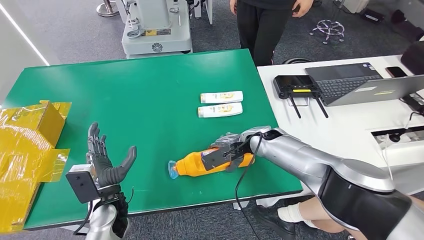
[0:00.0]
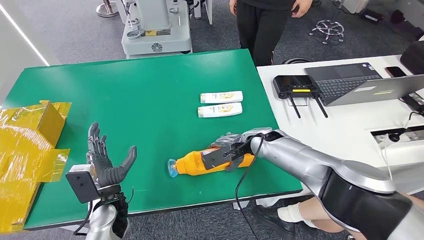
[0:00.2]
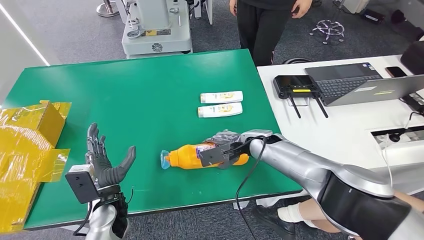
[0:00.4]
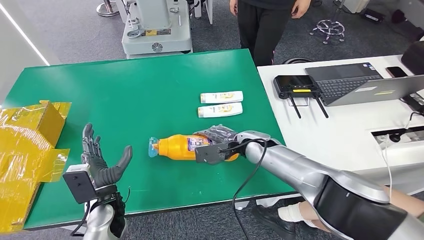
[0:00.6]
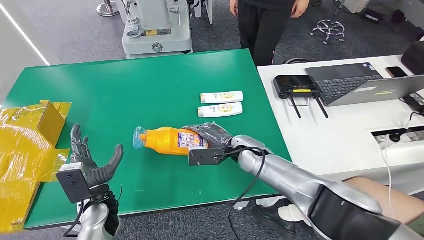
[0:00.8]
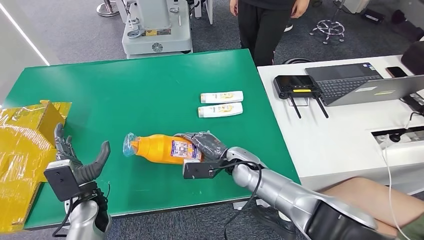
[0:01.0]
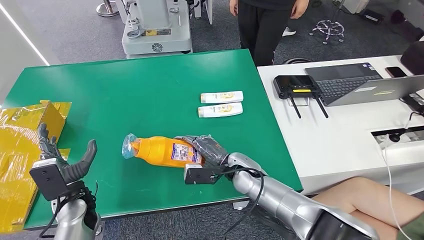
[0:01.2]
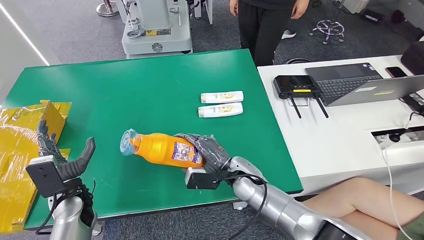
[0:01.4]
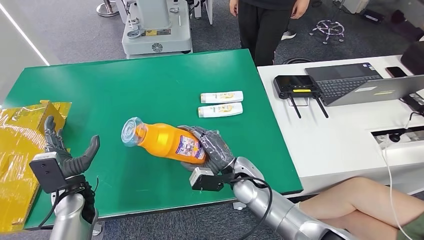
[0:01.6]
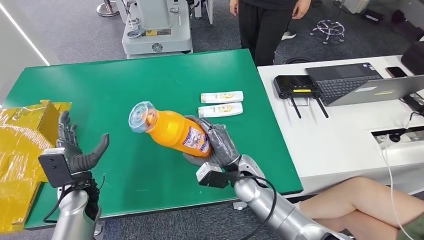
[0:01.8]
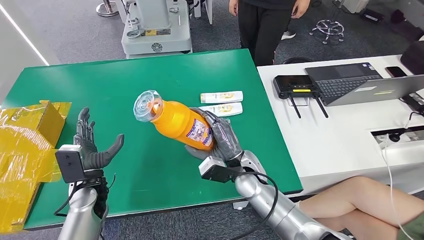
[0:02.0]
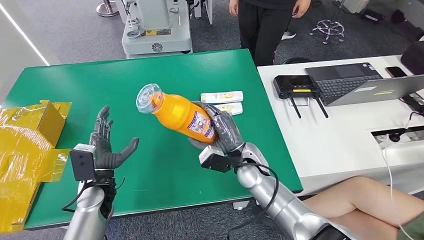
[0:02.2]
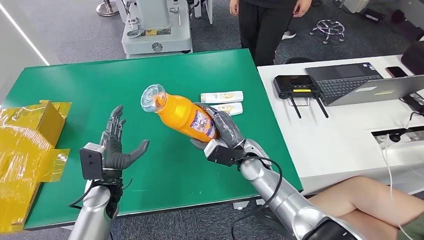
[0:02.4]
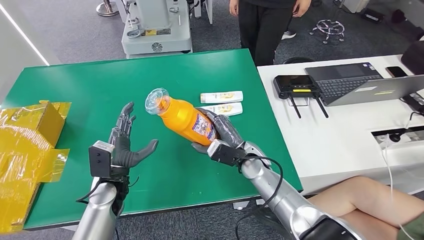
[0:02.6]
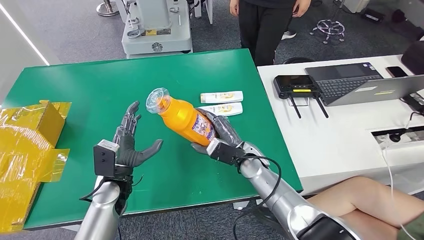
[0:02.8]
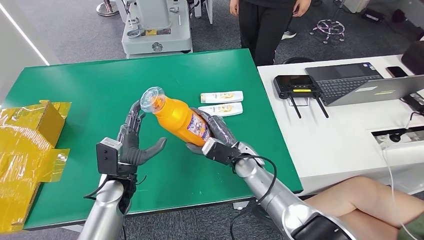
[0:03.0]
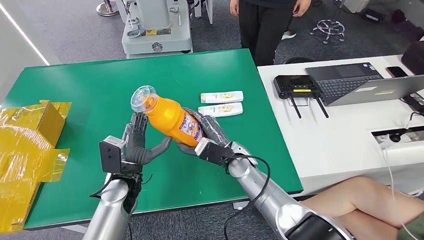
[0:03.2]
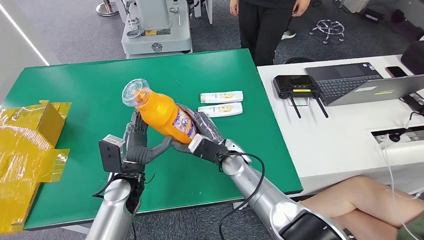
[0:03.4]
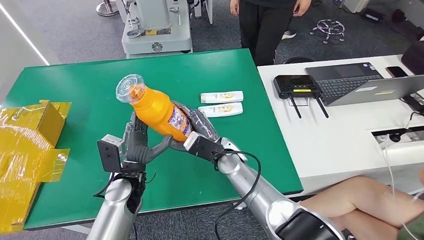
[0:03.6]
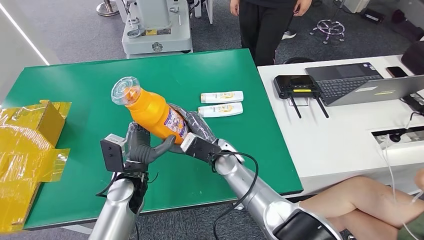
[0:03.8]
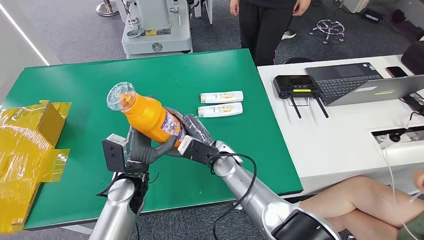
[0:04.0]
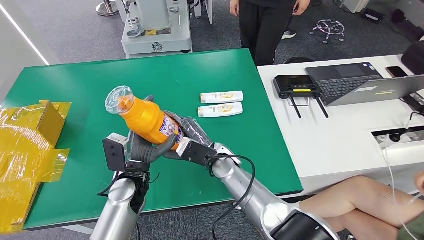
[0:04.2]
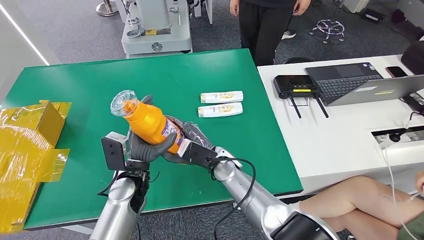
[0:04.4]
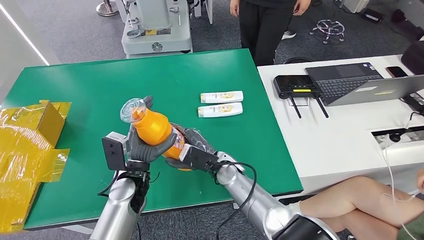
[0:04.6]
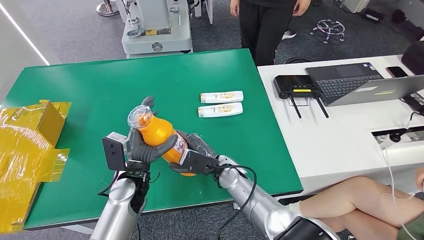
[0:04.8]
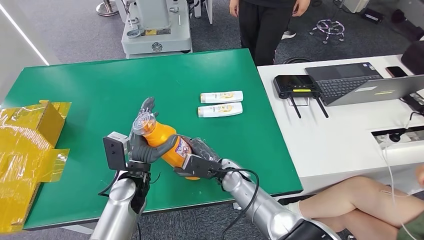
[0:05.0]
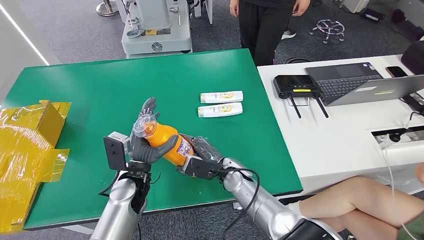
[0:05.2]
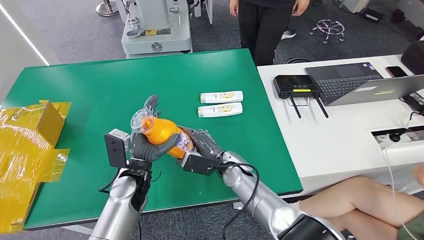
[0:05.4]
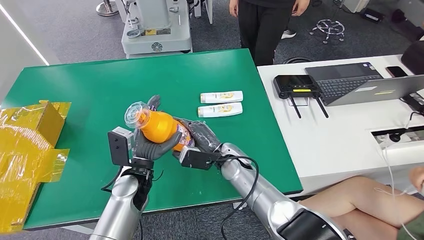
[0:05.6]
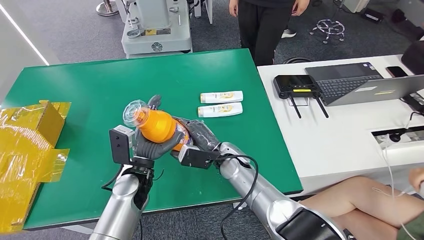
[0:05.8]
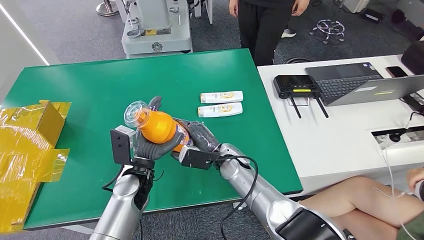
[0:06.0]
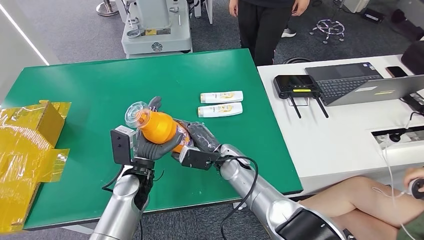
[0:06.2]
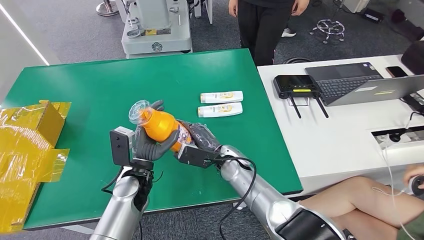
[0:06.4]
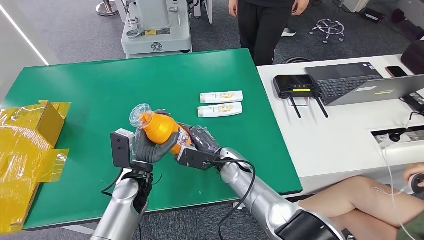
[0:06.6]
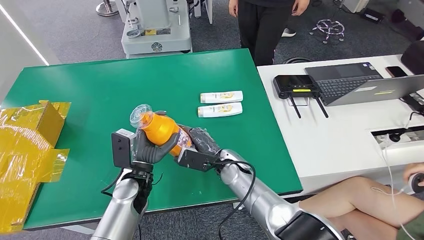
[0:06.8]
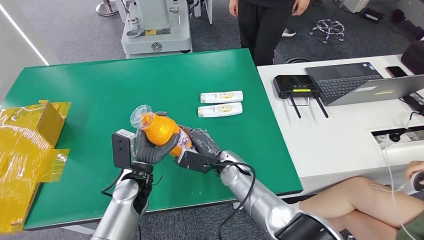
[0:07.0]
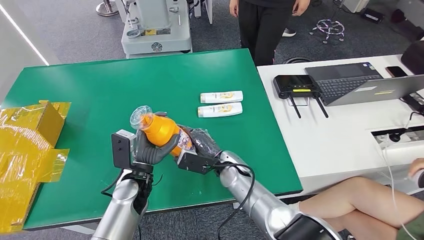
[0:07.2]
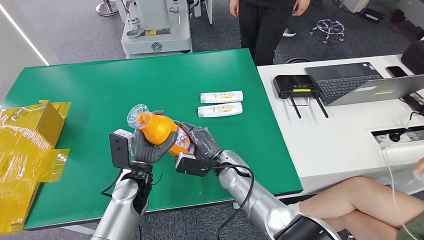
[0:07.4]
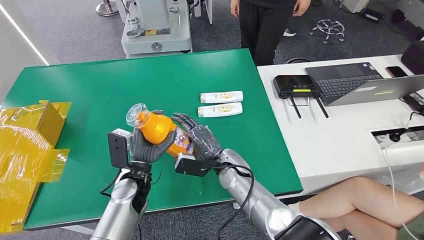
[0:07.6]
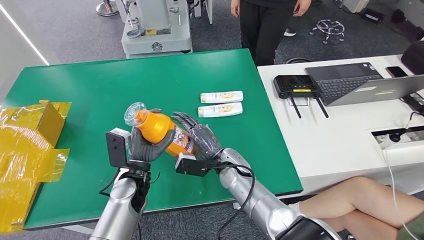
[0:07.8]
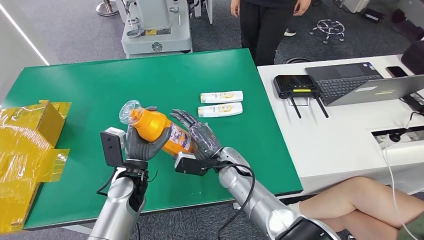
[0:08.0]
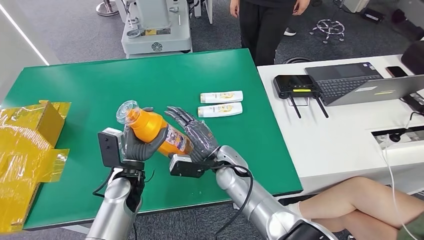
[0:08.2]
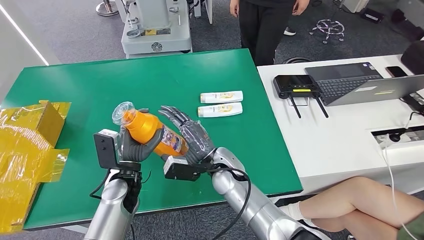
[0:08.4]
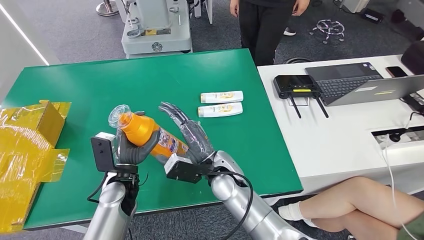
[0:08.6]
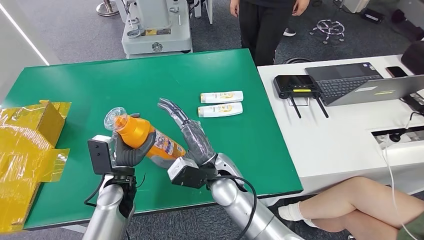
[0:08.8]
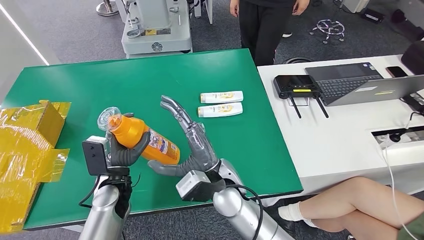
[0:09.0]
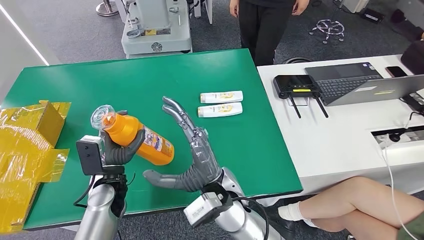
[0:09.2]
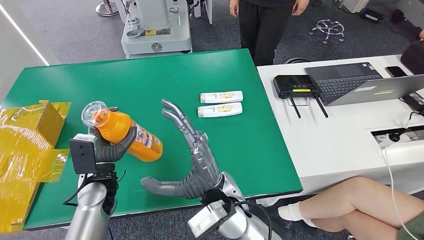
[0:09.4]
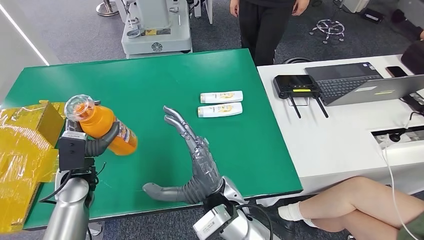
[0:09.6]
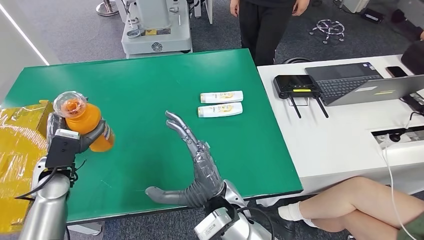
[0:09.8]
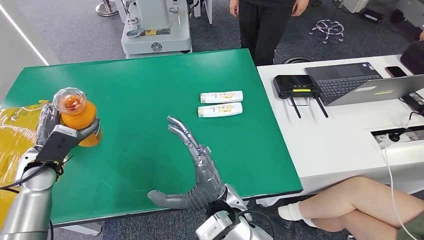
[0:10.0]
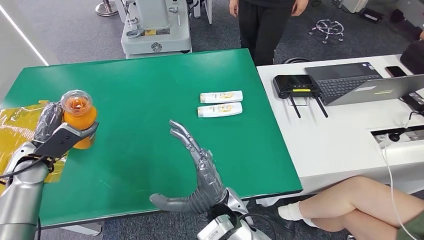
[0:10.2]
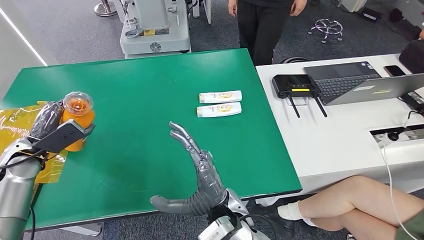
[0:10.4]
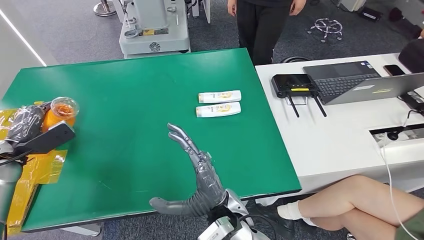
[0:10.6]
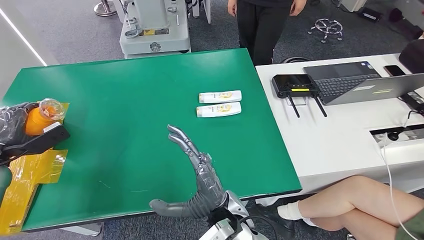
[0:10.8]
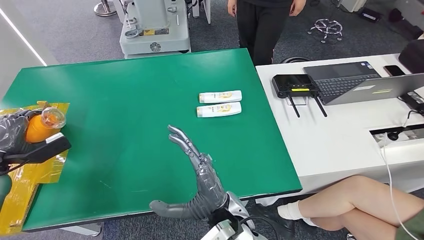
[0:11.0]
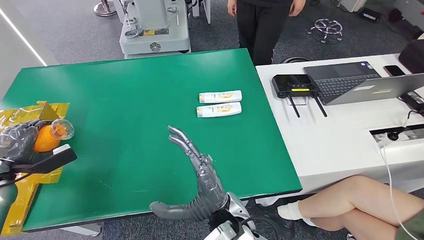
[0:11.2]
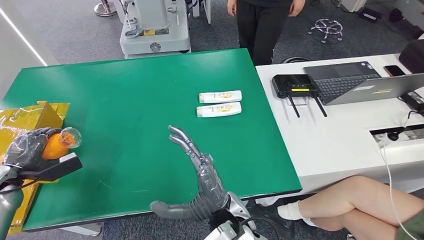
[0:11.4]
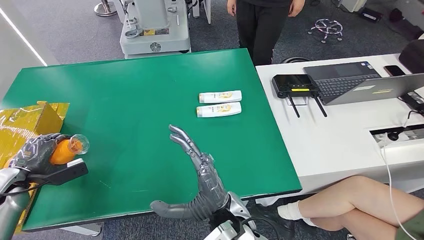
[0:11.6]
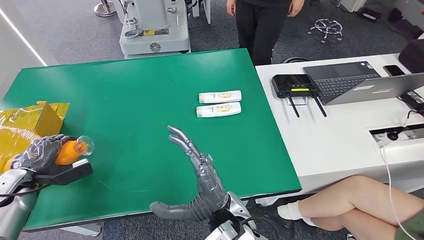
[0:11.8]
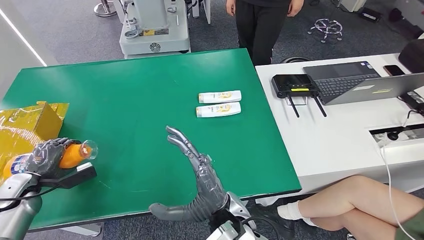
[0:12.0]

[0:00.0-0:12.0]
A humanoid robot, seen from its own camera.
0:01.6 to 0:03.0: The left hand heads to the right, covering about 10 cm.
0:03.0 to 0:04.4: The right hand moves to the left, approximately 5 cm.
0:04.4 to 0:06.0: The hands make only small movements.
0:06.0 to 0:07.6: There are only small adjustments of the hands.
0:07.6 to 0:09.0: The right hand is displaced upward and to the left by about 10 cm.
0:10.4 to 0:12.0: The left hand is displaced downward and to the left by approximately 10 cm.

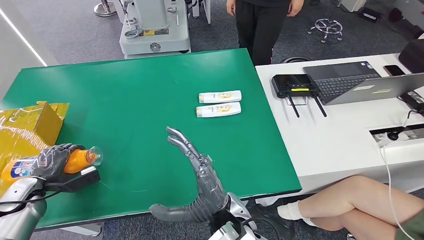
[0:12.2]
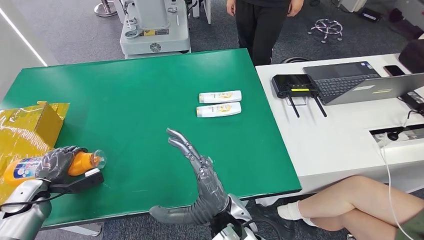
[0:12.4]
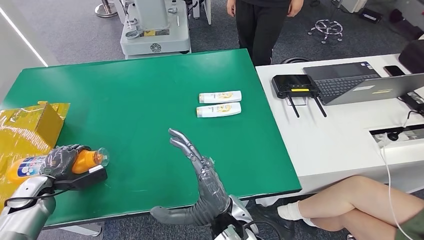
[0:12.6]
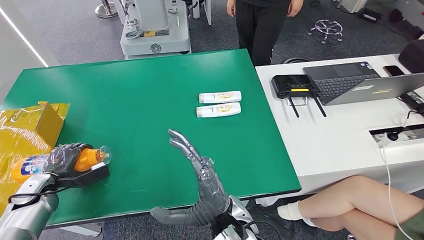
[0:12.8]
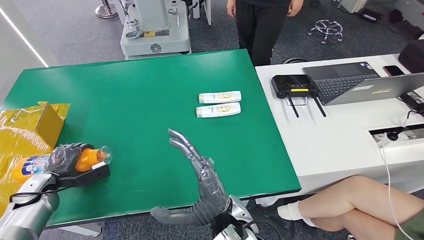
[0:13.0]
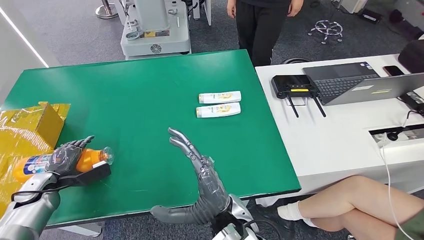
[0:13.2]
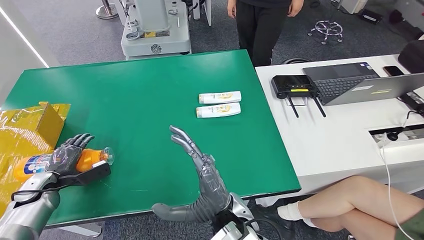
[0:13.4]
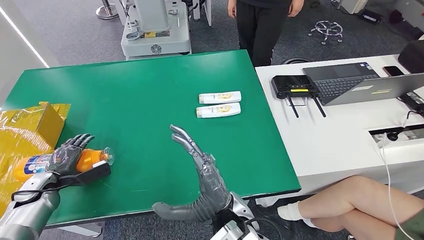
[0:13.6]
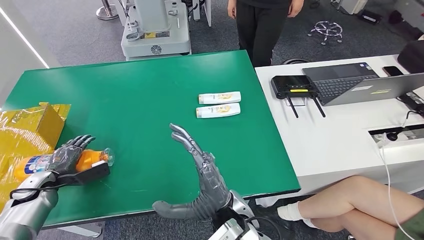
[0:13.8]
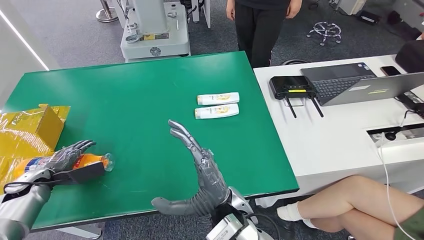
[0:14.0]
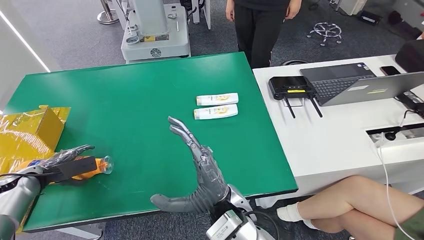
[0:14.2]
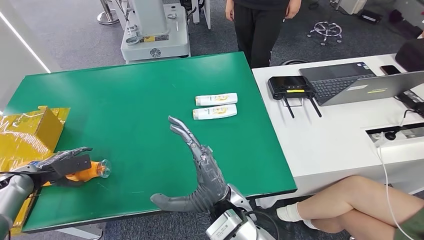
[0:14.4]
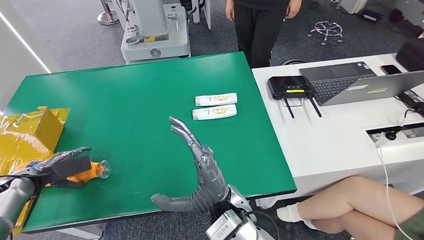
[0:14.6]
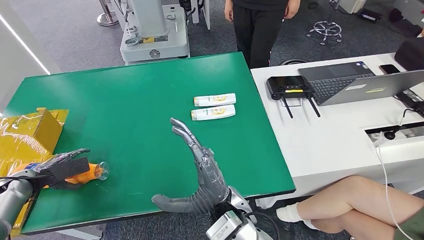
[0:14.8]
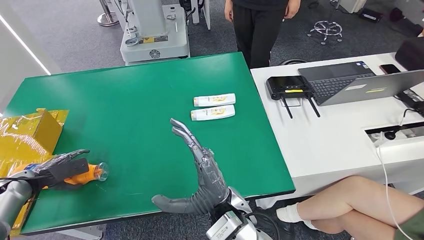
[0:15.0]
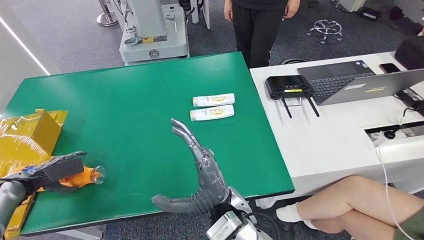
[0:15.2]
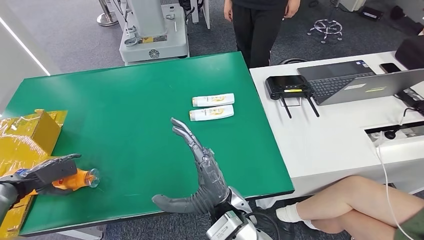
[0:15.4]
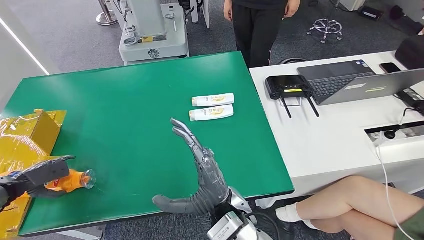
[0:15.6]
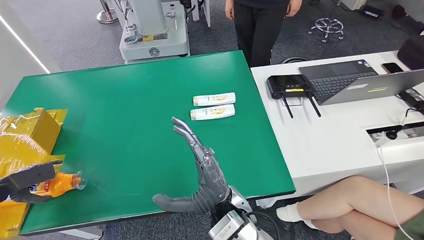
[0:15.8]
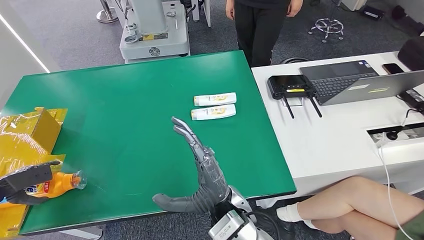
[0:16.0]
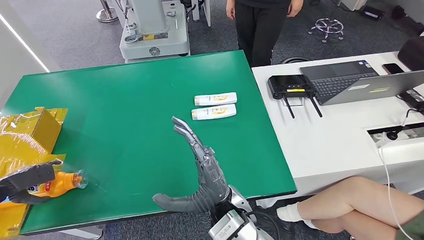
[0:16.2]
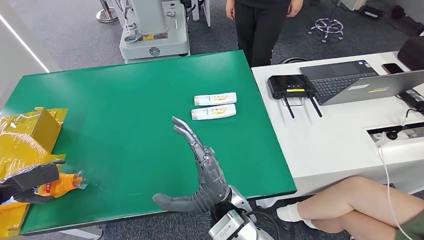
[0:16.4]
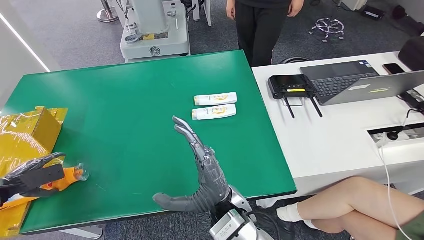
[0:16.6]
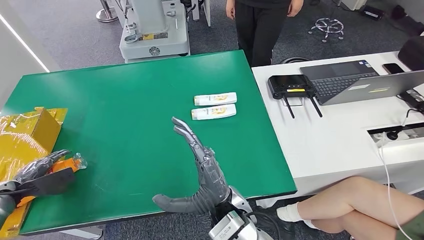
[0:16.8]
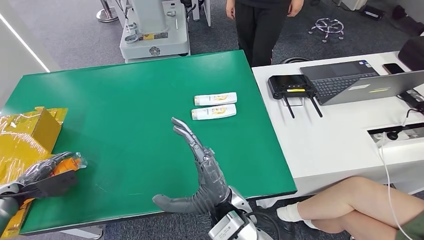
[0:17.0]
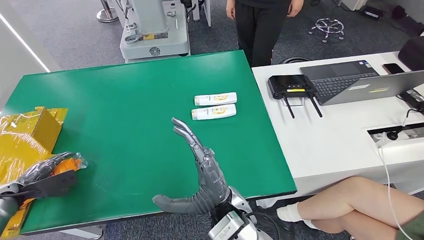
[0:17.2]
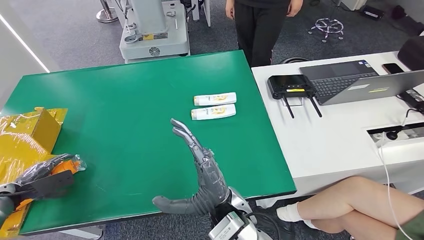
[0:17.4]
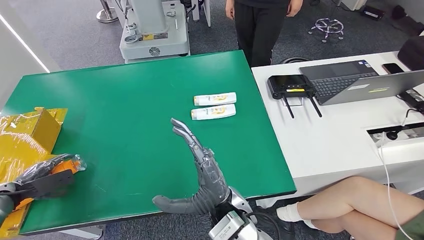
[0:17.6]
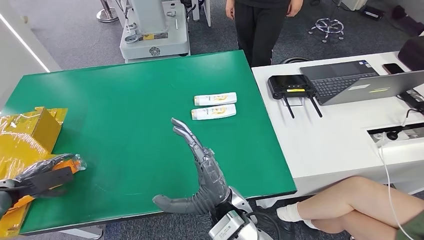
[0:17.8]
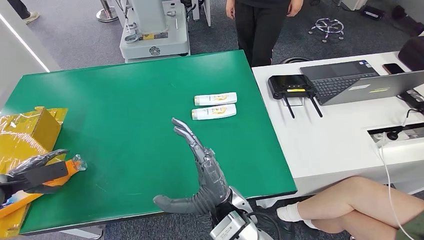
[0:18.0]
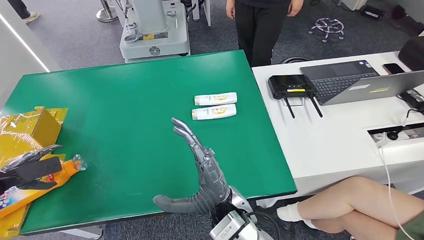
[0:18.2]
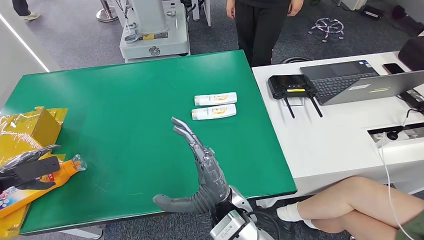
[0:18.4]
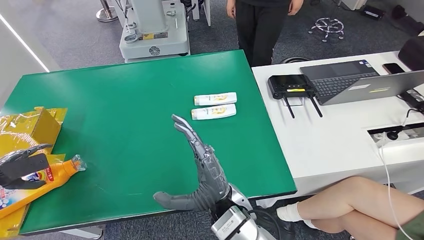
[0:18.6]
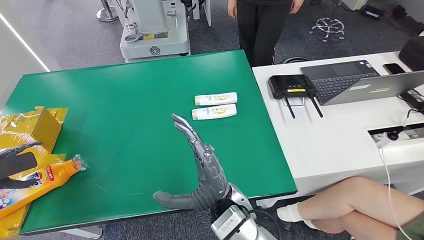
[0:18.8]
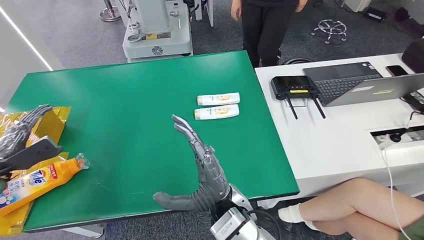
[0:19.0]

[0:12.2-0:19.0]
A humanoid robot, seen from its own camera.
0:12.2 to 0:13.6: The hands make only small movements.
0:15.0 to 0:16.2: The left hand goes roughly 10 cm to the left.
0:16.2 to 0:17.6: The left hand shifts by about 5 cm.
